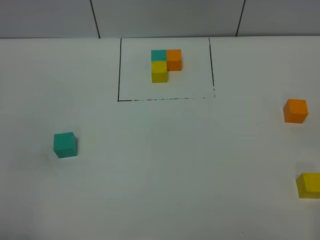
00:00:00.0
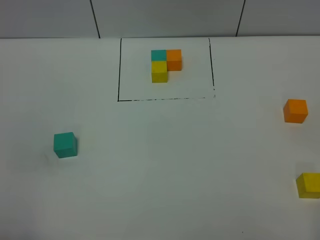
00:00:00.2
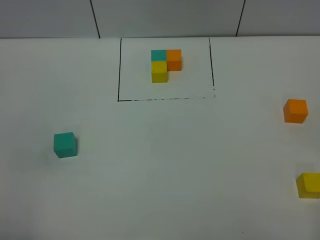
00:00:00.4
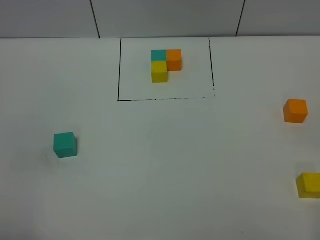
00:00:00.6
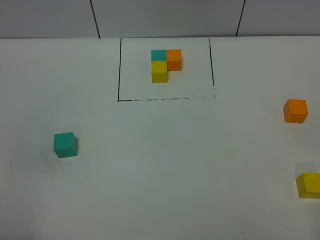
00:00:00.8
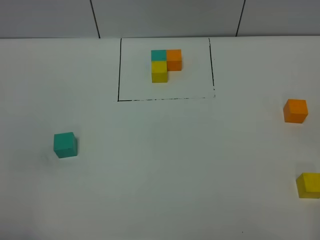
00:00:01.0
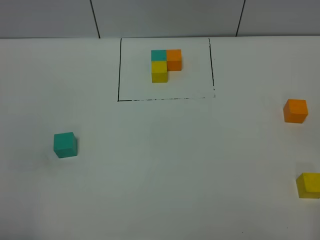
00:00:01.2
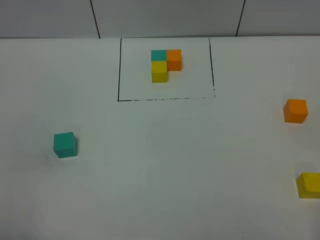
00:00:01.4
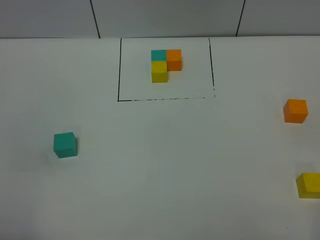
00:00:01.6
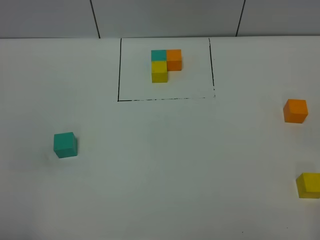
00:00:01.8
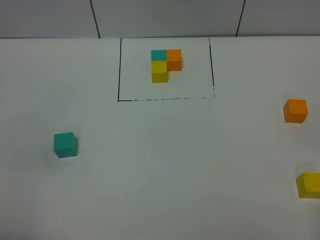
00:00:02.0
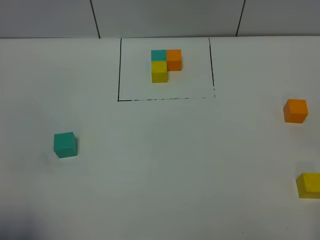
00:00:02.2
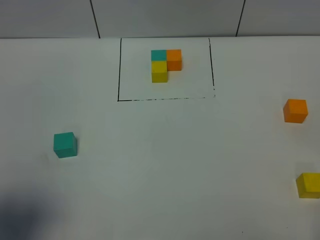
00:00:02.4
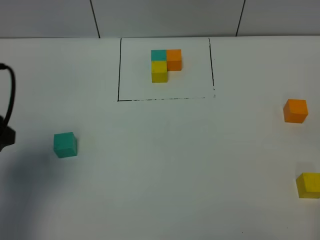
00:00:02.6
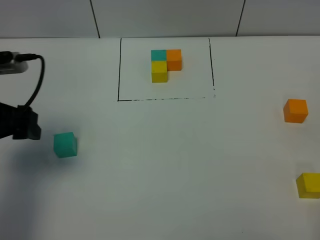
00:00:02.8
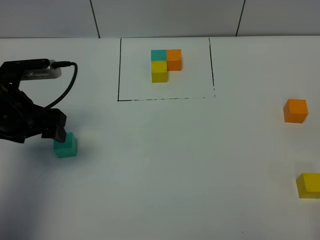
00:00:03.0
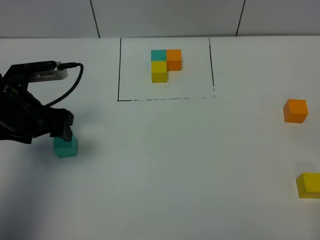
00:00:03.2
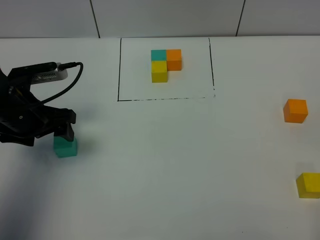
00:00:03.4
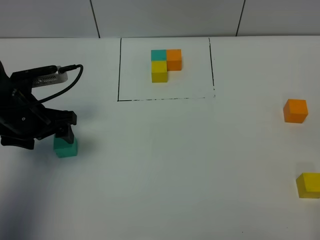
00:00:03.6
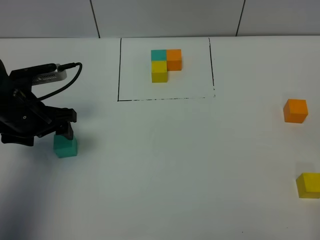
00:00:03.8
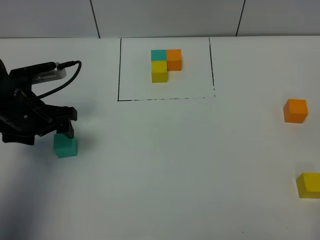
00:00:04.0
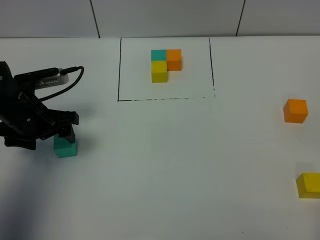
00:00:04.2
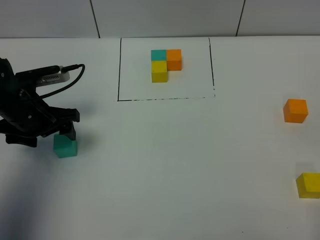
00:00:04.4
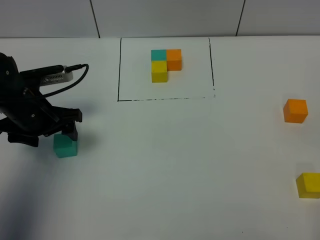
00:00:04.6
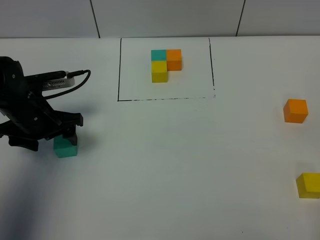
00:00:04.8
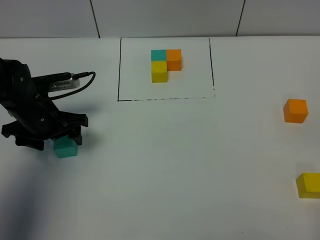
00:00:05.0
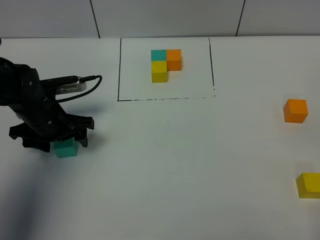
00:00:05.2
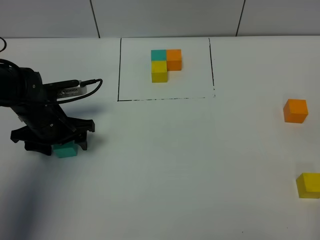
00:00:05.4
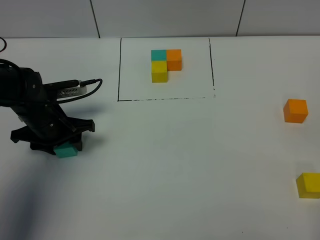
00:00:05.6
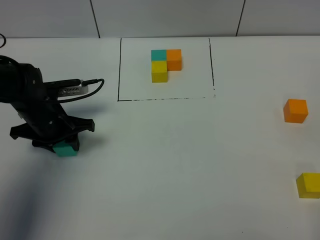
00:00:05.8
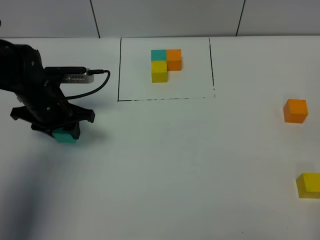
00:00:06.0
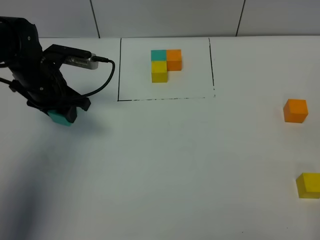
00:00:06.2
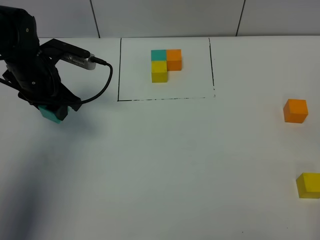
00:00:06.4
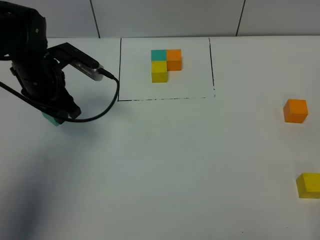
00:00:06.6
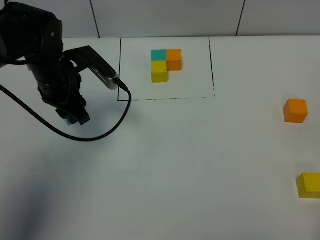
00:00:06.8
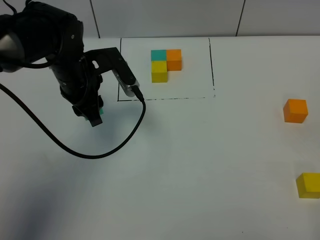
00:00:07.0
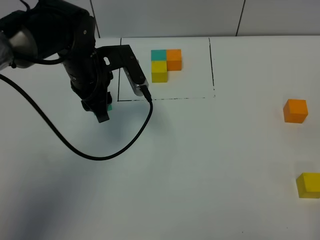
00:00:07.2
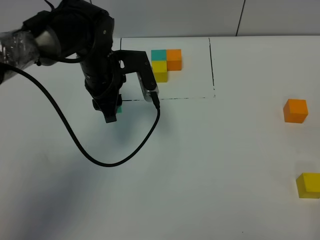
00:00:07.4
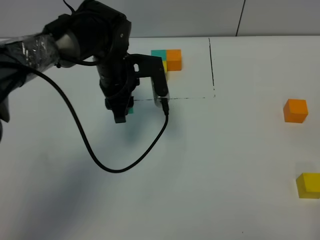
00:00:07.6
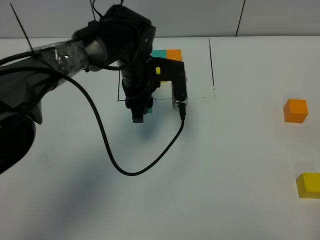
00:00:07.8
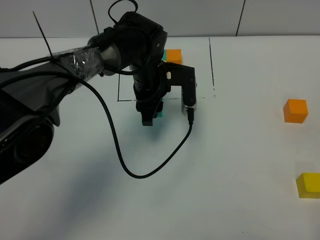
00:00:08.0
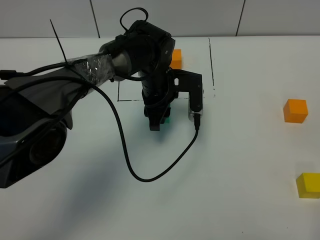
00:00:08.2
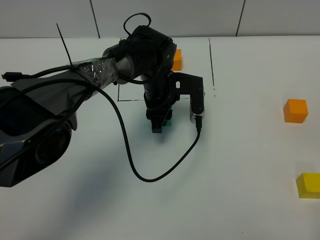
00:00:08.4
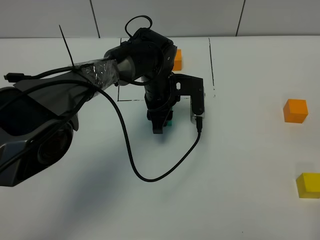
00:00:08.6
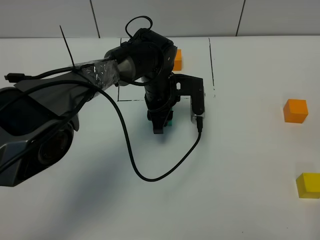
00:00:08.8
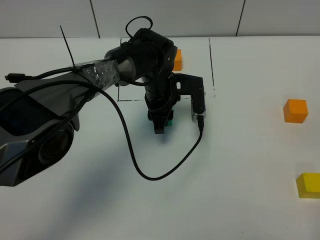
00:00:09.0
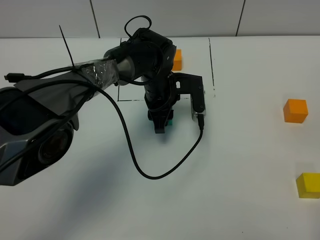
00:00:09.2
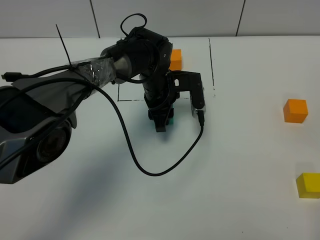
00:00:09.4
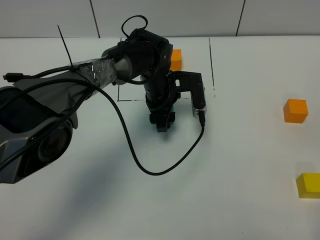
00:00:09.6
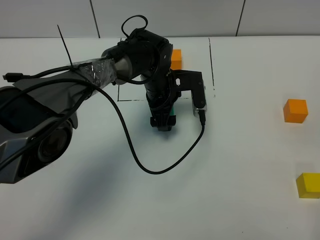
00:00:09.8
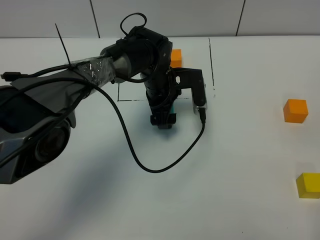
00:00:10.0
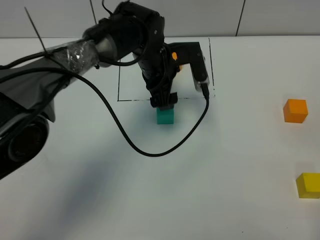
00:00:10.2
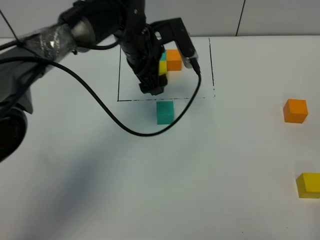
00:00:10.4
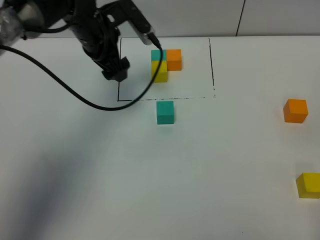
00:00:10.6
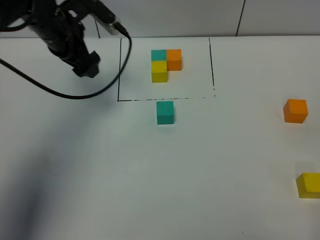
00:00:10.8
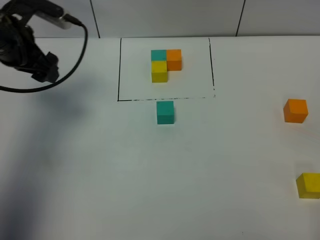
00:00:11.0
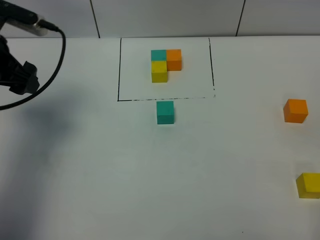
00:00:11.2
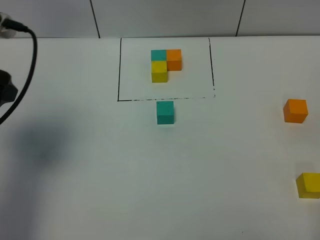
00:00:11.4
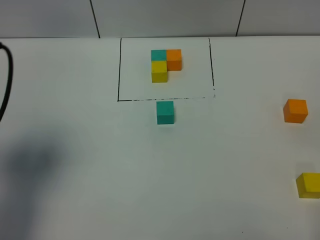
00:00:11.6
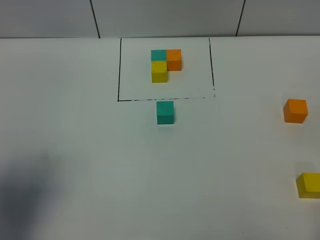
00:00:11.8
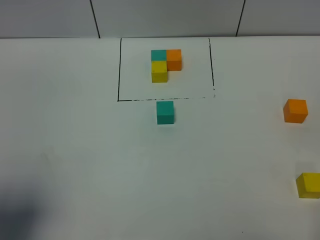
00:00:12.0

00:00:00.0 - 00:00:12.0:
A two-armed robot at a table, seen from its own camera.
Task of the whole recording: According to the building block template in front, assemble the scattered blocks together.
Step, 00:00:00.0 - 00:00:09.4: Put the green build block in the center of the table.
00:00:00.0 - 00:00:01.6: The two grippers keep their place.
00:00:01.6 - 00:00:03.0: The left gripper moves forward, about 30 cm.
00:00:03.0 - 00:00:04.4: The left gripper ends up some 5 cm from where it was.
00:00:04.4 - 00:00:06.0: The left gripper closes up.
00:00:06.0 - 00:00:07.6: The left gripper shifts about 15 cm to the right.
00:00:07.6 - 00:00:09.0: The left gripper heads to the right and downward, covering about 10 cm.
00:00:09.0 - 00:00:10.4: The left gripper is displaced upward and to the left by approximately 10 cm, and opens up.
00:00:10.4 - 00:00:12.0: The left gripper travels backward and to the left by about 40 cm.

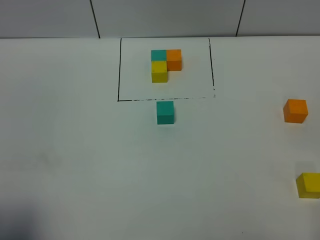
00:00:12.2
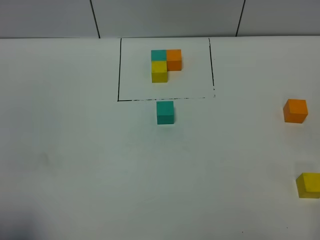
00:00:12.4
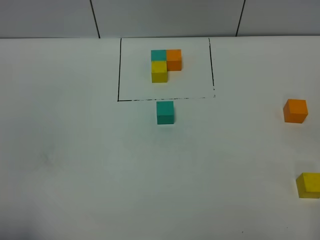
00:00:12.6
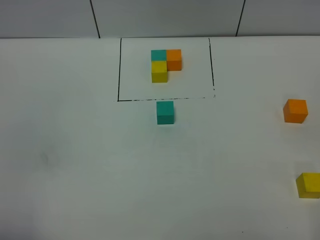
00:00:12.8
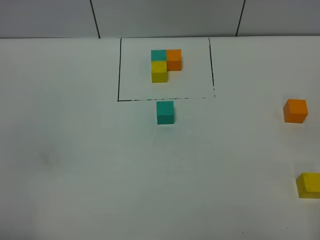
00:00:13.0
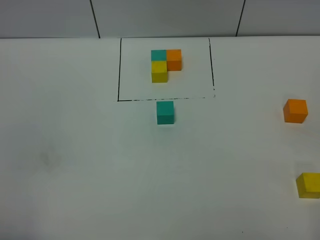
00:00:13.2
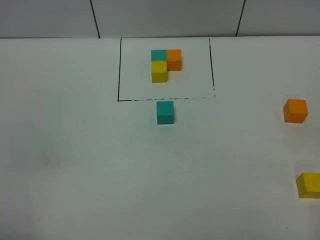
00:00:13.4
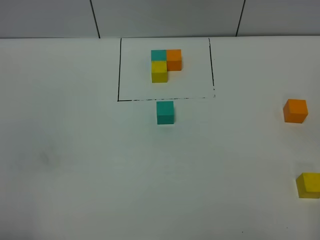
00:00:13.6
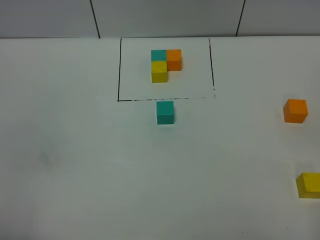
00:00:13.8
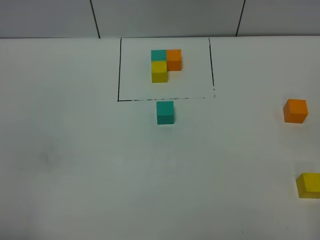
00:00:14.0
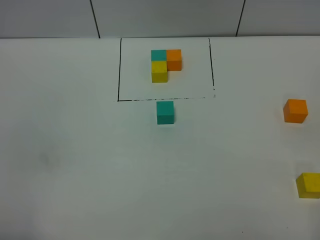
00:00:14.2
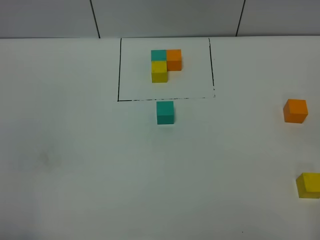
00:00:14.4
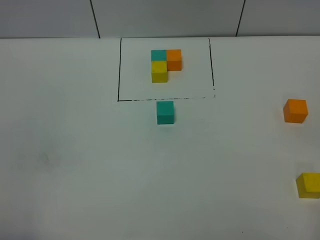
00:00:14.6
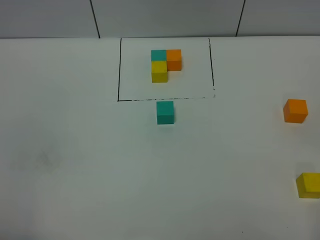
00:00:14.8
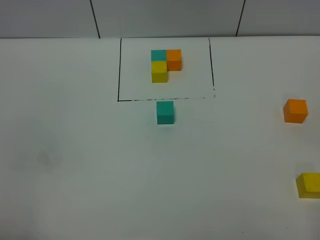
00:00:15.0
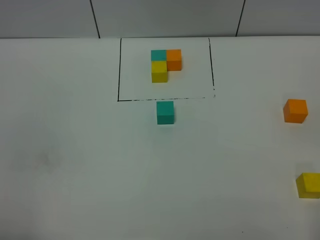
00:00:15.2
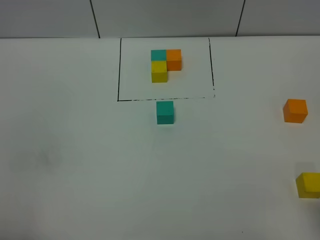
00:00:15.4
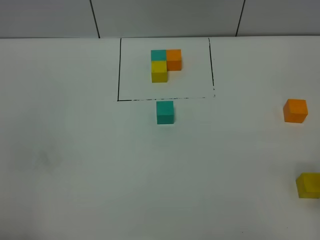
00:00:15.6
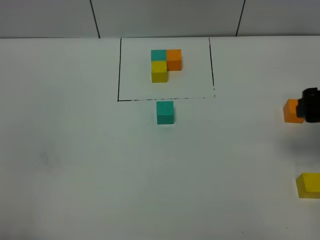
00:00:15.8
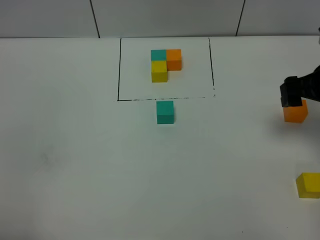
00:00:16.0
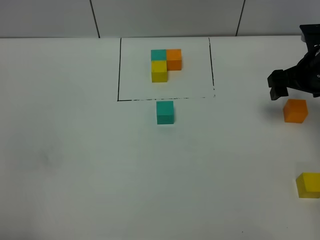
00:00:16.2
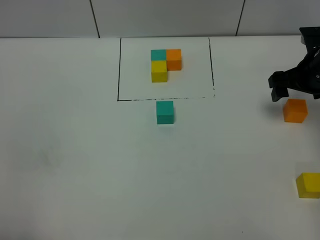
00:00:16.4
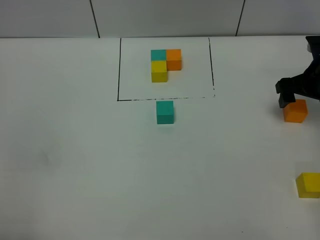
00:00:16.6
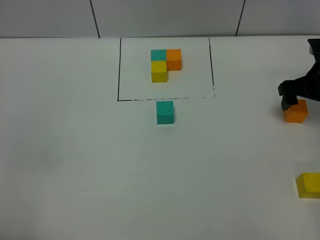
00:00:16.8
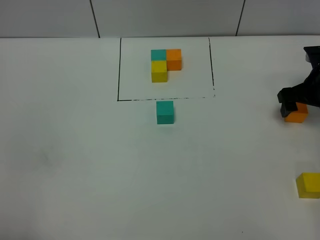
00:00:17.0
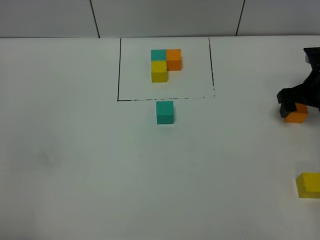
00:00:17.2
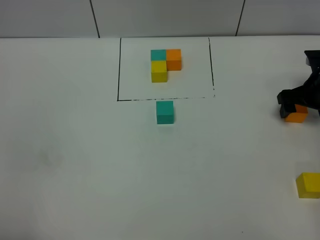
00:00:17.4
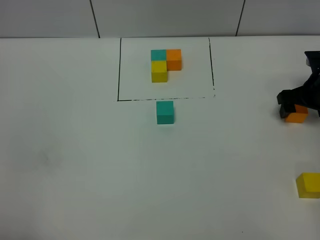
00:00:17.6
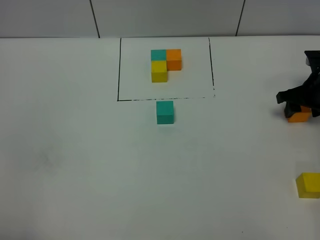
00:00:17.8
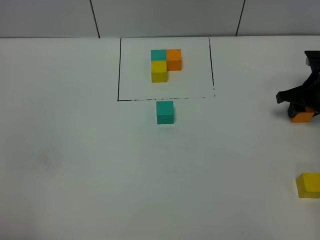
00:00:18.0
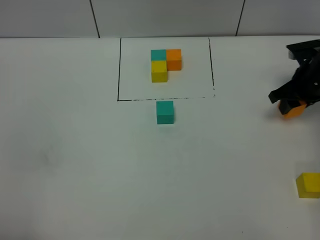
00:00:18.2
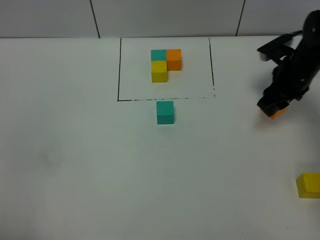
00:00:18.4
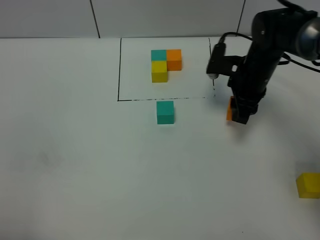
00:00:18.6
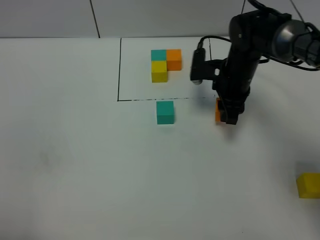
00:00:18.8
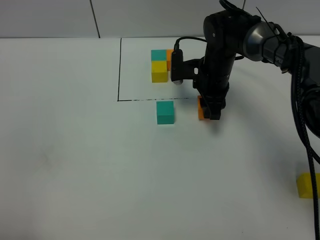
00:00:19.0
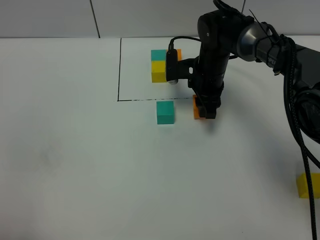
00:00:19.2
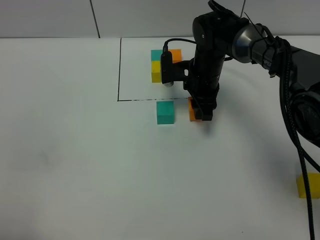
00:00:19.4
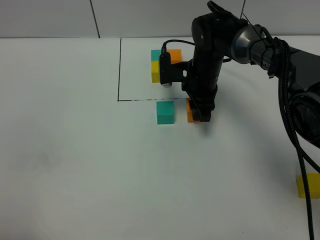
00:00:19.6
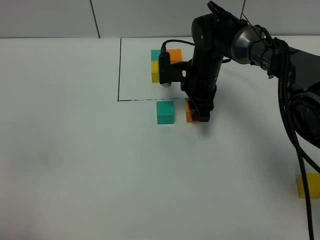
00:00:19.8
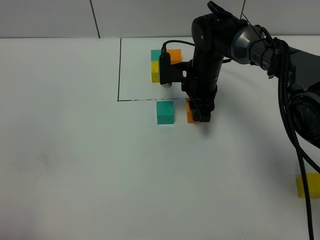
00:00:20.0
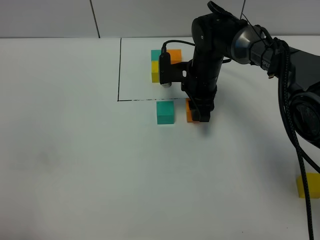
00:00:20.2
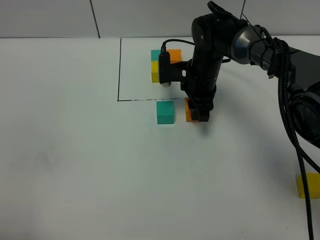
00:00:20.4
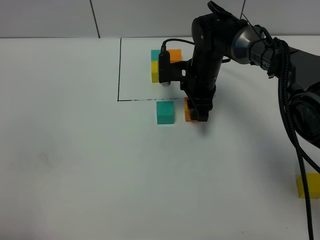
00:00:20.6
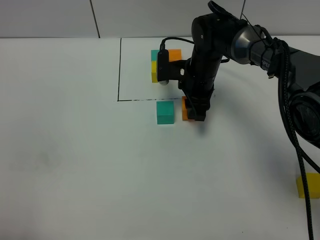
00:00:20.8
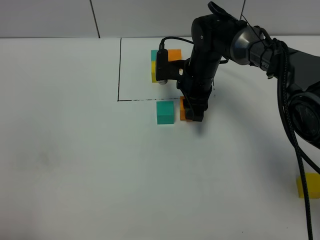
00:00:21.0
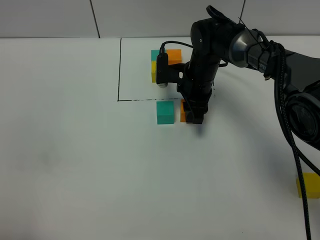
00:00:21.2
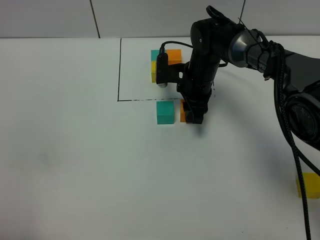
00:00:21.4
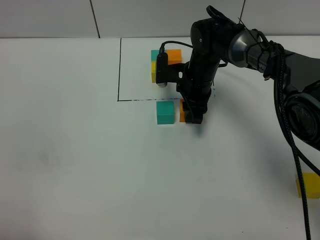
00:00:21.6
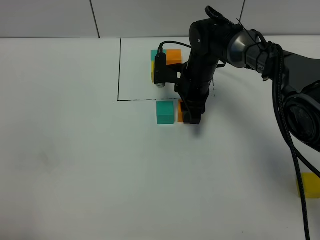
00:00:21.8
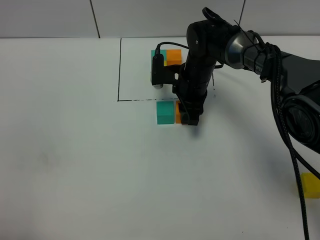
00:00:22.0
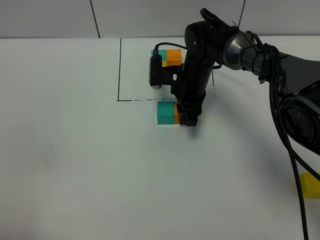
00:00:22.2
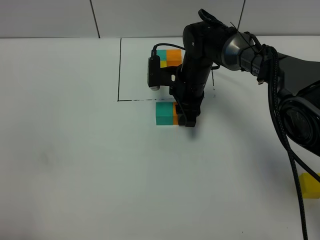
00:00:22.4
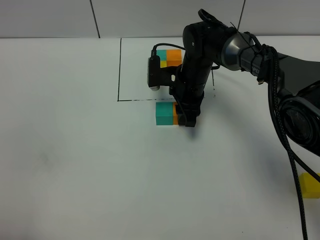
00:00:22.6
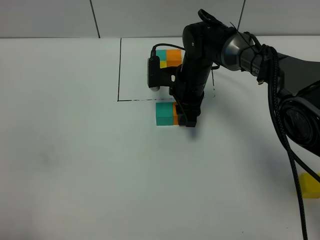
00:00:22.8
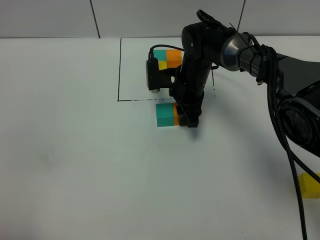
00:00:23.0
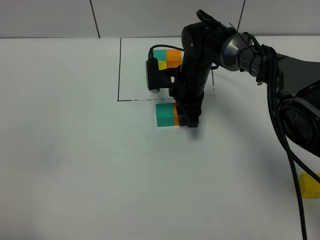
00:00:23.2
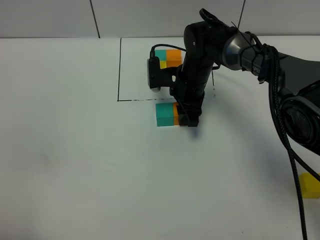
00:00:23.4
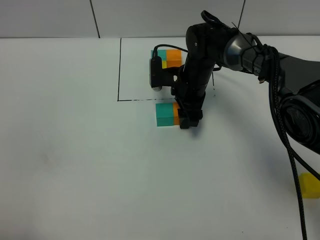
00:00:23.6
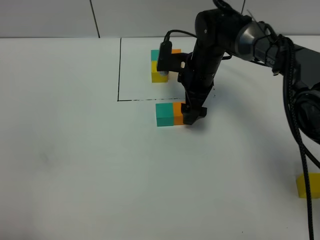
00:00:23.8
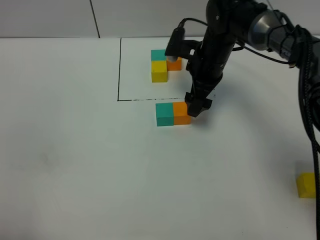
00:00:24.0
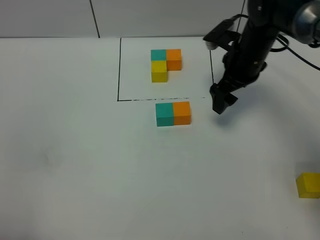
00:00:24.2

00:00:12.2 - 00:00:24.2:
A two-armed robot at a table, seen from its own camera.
Task of the whole recording: According to the building block template in front, assemble the scattered blocks together.
Step, 00:00:12.2 - 00:00:23.6: Put the orange build block on the right of the blue build block.
00:00:12.2 - 00:00:13.8: The left gripper goes roughly 5 cm downward.
00:00:15.2 - 00:00:16.6: The right gripper shifts roughly 35 cm forward.
00:00:16.6 - 00:00:18.2: The right gripper closes up.
00:00:18.2 - 00:00:19.8: The right gripper shifts about 20 cm to the left.
00:00:19.8 - 00:00:21.2: The two grippers keep their place.
00:00:21.2 - 00:00:22.6: The grippers stay close to where they were, moving slightly.
00:00:22.6 - 00:00:24.2: The right gripper goes some 15 cm to the right and upward, and opens up.
